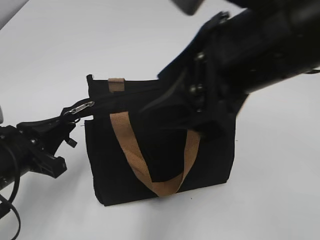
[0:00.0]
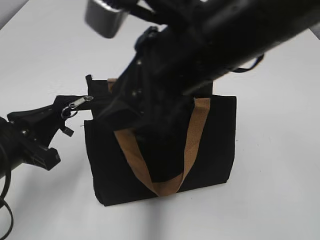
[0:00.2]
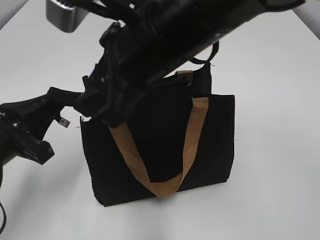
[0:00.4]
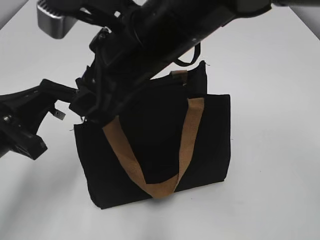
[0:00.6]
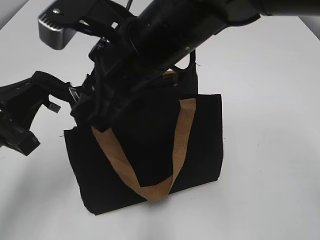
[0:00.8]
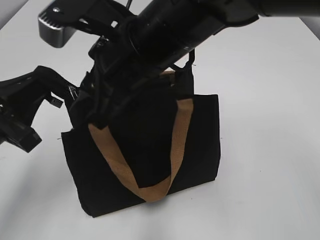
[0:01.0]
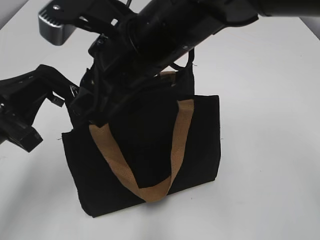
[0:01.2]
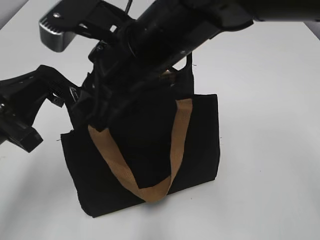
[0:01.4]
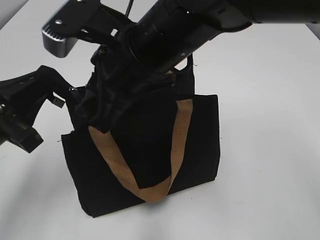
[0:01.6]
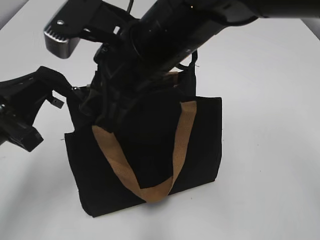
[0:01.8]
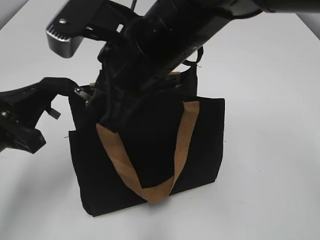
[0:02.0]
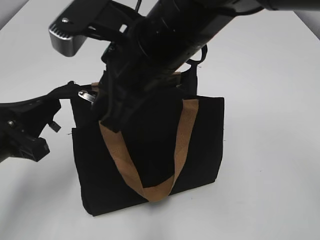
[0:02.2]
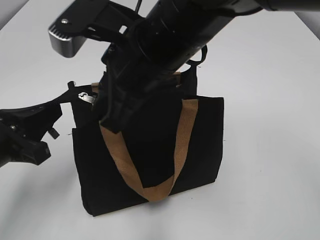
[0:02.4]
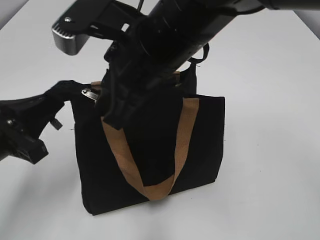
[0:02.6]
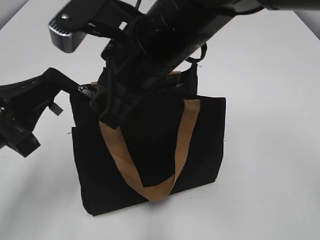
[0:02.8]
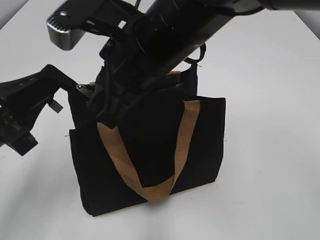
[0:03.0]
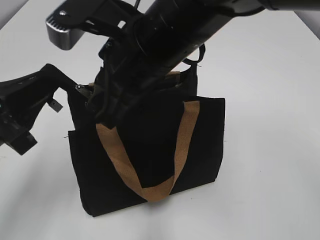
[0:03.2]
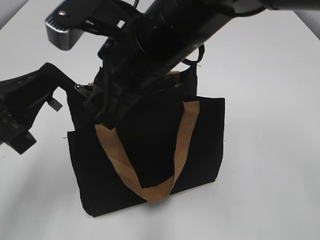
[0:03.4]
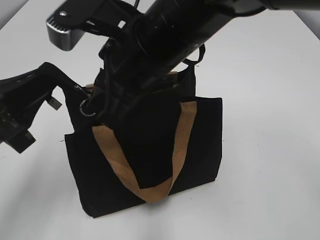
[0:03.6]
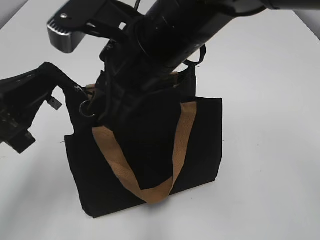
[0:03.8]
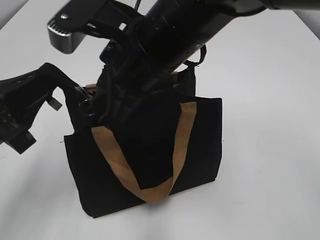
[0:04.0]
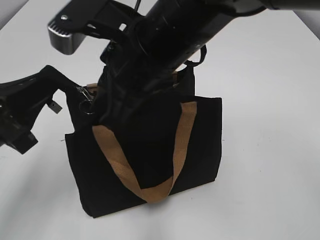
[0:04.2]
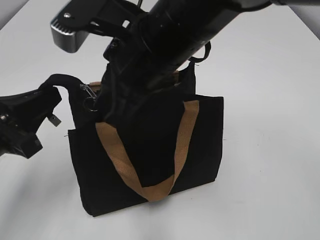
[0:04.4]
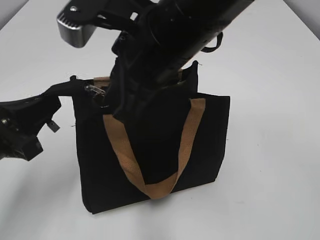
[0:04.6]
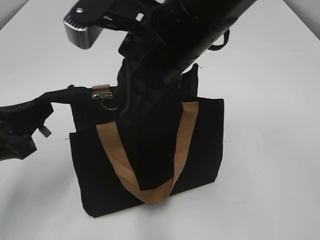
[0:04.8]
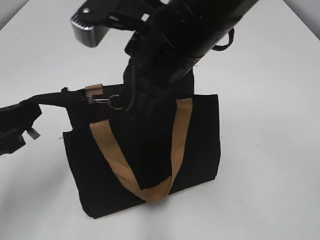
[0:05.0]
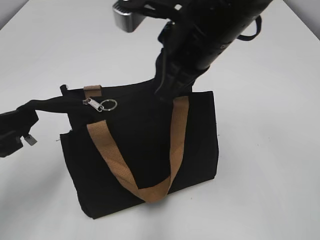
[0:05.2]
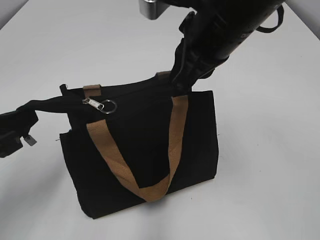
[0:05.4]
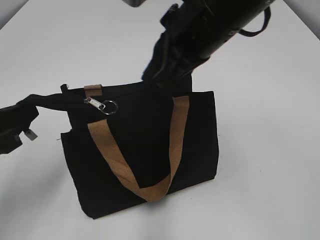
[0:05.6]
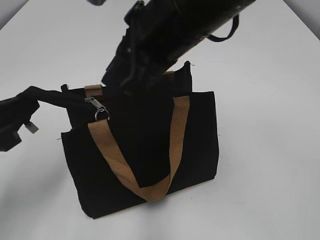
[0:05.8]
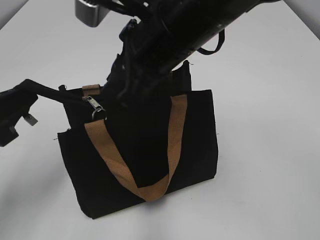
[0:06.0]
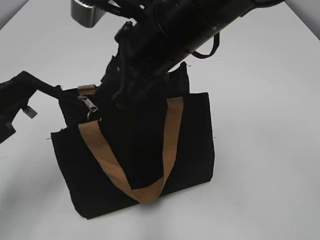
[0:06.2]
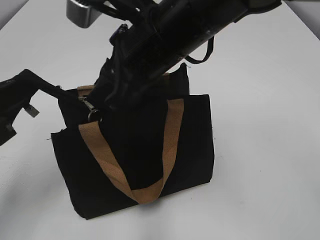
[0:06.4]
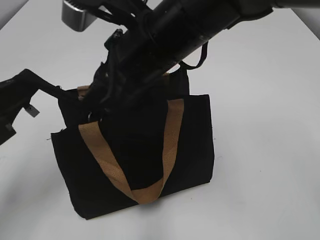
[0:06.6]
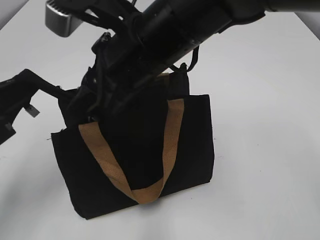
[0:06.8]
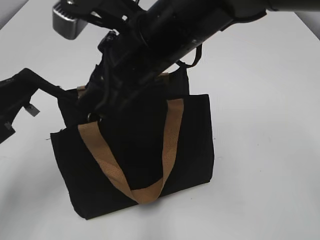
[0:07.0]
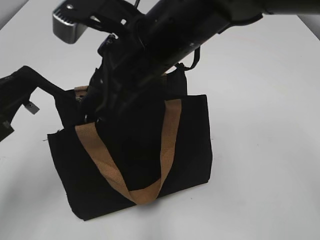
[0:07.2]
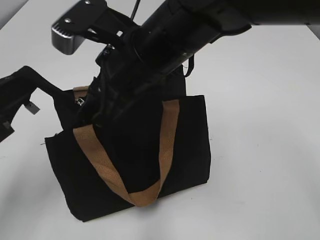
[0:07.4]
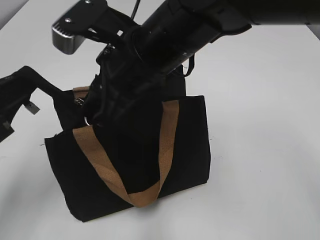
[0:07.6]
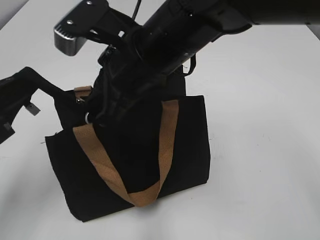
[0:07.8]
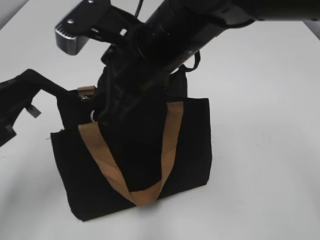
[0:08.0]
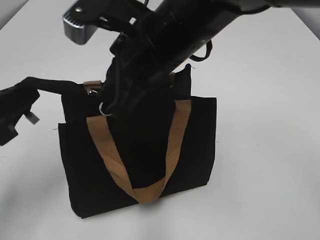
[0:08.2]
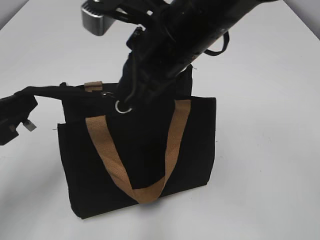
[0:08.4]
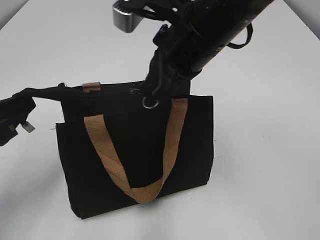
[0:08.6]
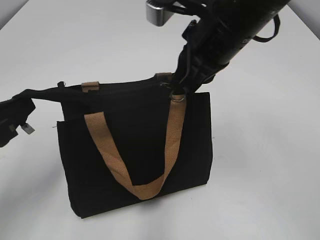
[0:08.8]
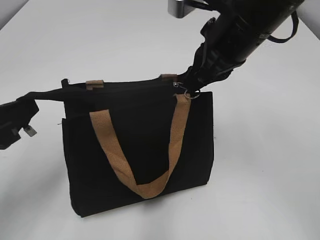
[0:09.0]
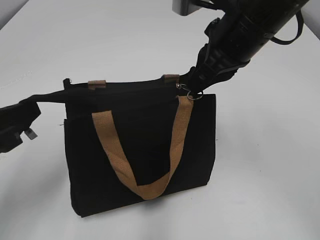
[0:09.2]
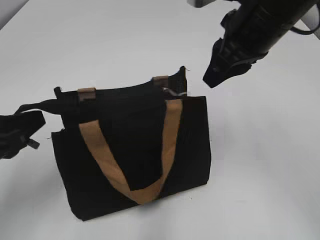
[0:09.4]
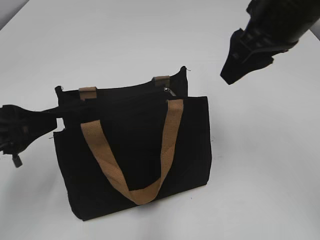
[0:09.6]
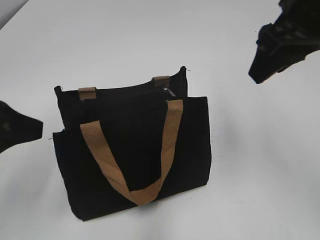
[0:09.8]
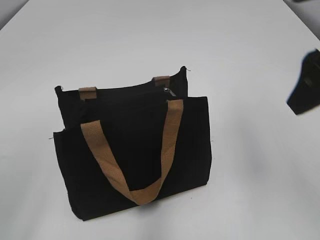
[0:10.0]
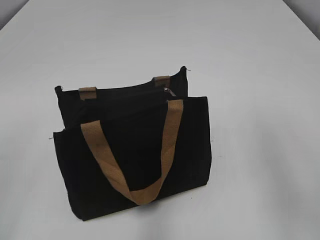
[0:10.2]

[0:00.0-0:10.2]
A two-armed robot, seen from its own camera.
Step, 0:00.0 to 0:09.2: Zip up the bag with your right hand.
0:00.0 to 0:01.4: The left gripper shifts roughly 5 cm upward. The right gripper goes some 15 cm to the left, forward and downward, and closes.
0:01.4 to 0:04.4: The grippers move only a little.
0:05.8 to 0:07.2: The right gripper ends up about 5 cm from where it was.
0:07.2 to 0:08.8: The right gripper shifts some 10 cm to the right, and closes its fingers.
0:08.8 to 0:10.2: The left gripper heads upward and backward, covering roughly 10 cm, and opens its fingers, while the right gripper shifts approximately 20 cm to the right and backward, and opens its fingers.

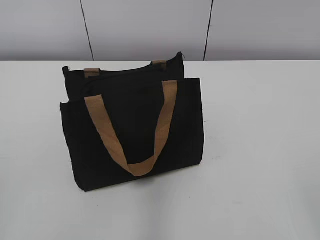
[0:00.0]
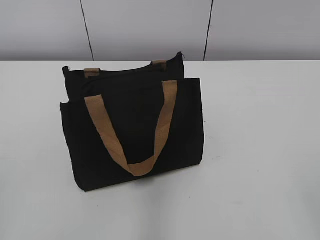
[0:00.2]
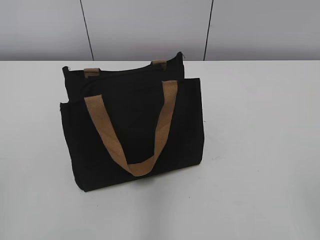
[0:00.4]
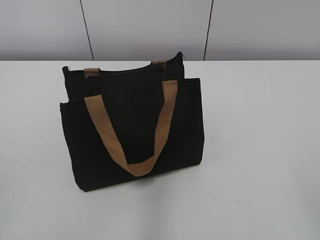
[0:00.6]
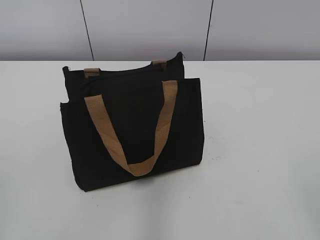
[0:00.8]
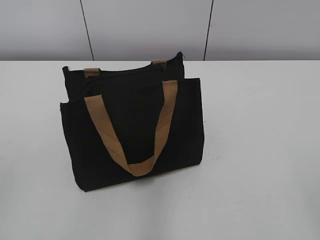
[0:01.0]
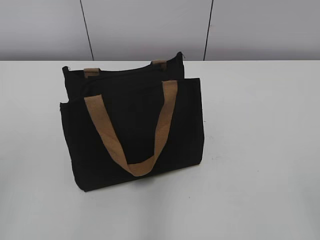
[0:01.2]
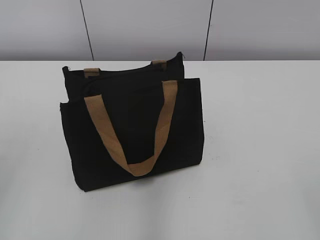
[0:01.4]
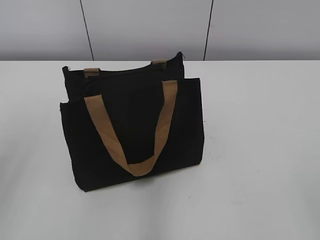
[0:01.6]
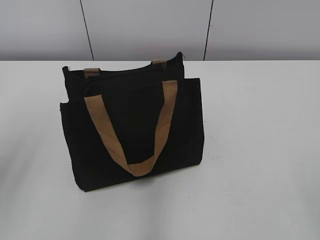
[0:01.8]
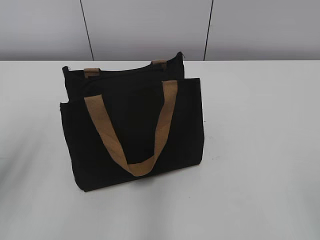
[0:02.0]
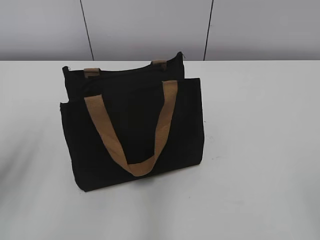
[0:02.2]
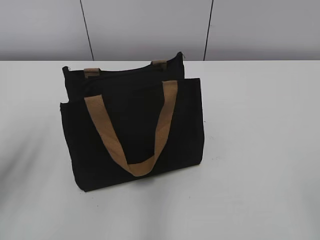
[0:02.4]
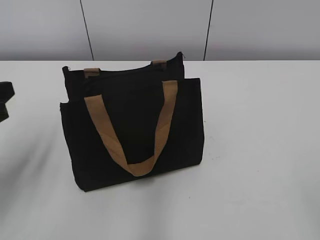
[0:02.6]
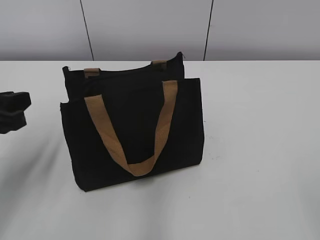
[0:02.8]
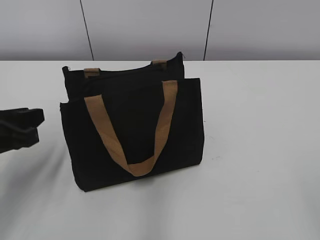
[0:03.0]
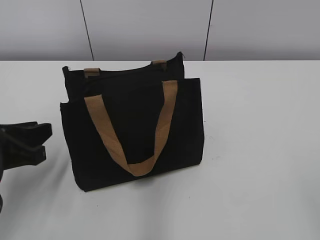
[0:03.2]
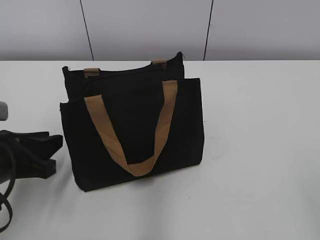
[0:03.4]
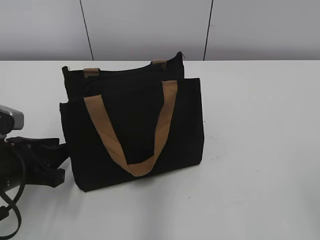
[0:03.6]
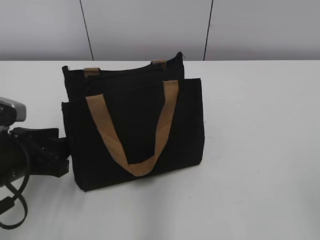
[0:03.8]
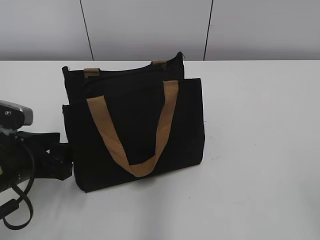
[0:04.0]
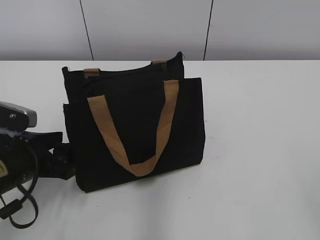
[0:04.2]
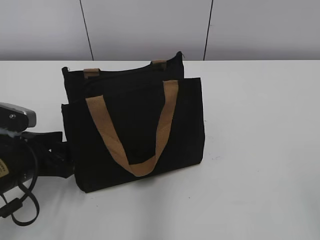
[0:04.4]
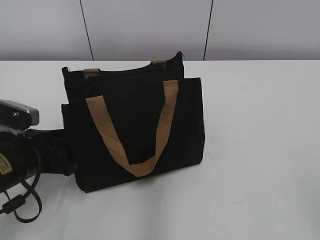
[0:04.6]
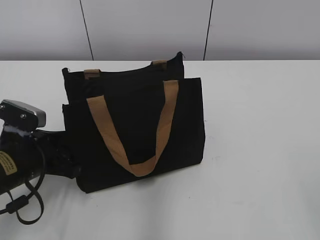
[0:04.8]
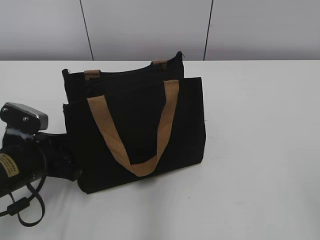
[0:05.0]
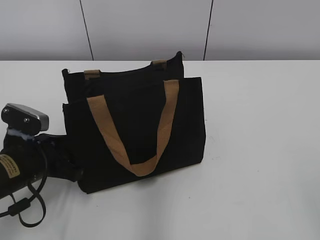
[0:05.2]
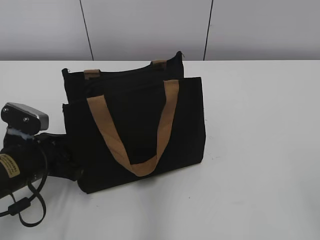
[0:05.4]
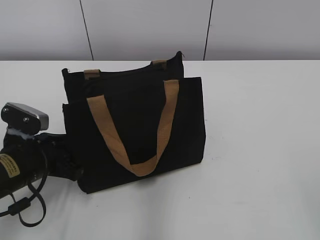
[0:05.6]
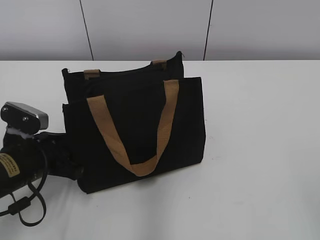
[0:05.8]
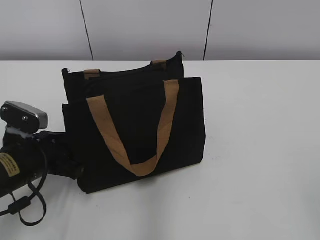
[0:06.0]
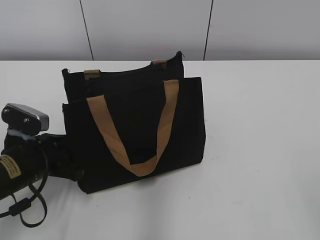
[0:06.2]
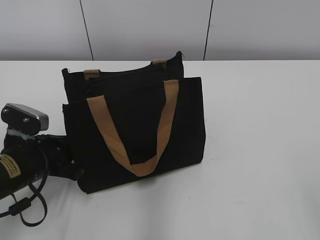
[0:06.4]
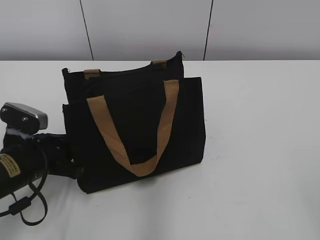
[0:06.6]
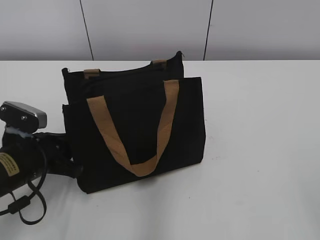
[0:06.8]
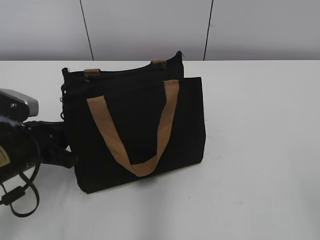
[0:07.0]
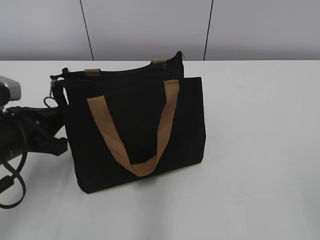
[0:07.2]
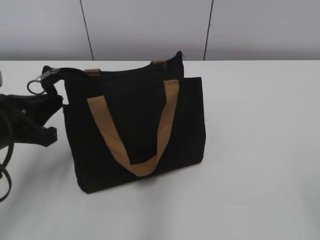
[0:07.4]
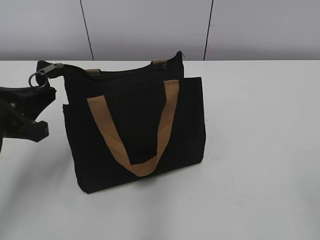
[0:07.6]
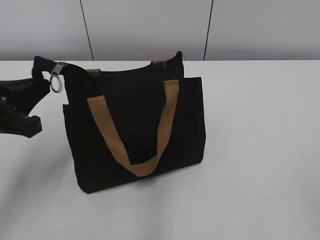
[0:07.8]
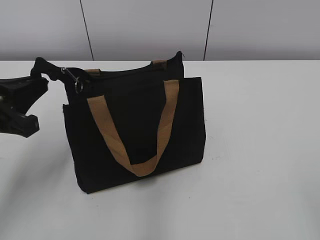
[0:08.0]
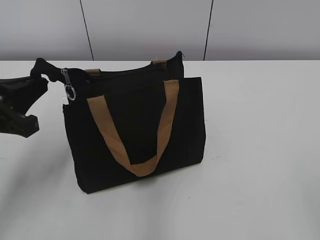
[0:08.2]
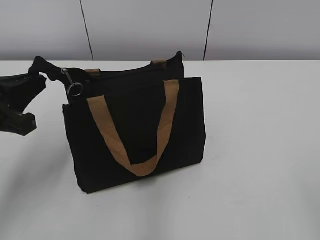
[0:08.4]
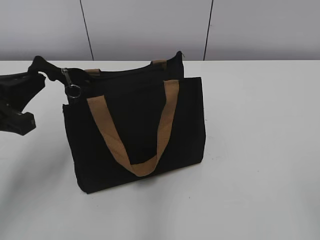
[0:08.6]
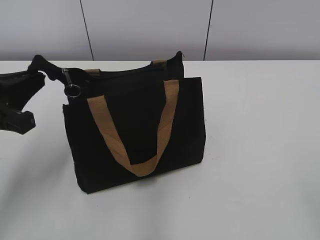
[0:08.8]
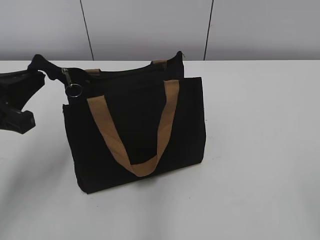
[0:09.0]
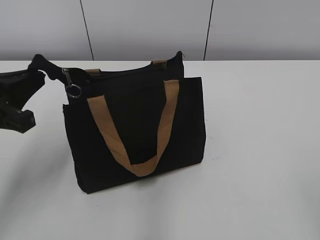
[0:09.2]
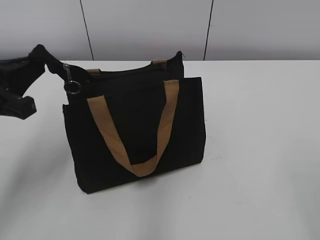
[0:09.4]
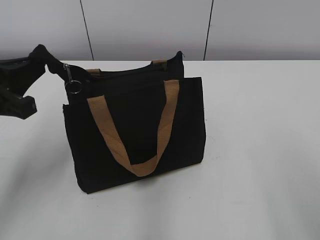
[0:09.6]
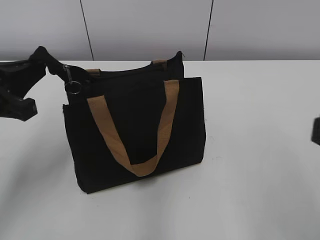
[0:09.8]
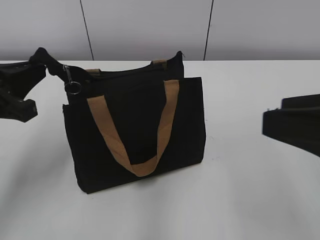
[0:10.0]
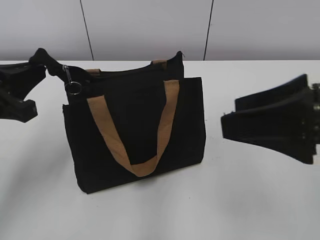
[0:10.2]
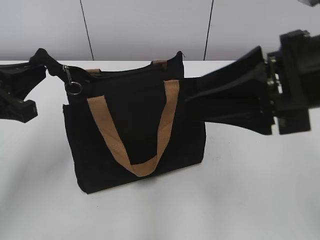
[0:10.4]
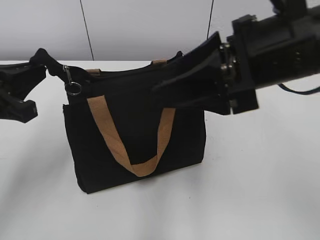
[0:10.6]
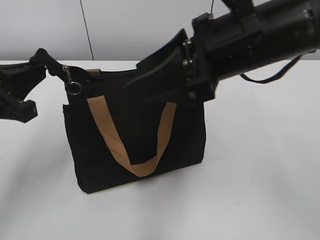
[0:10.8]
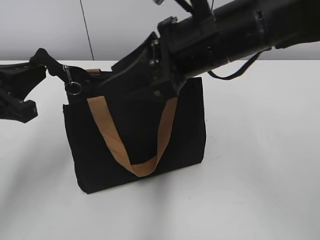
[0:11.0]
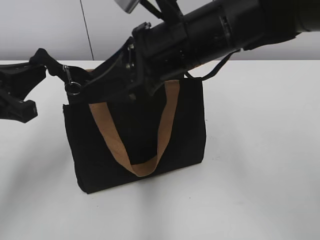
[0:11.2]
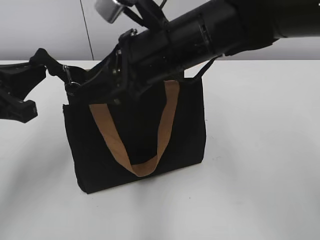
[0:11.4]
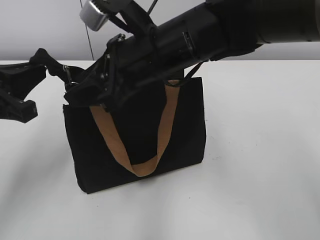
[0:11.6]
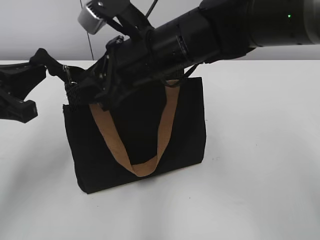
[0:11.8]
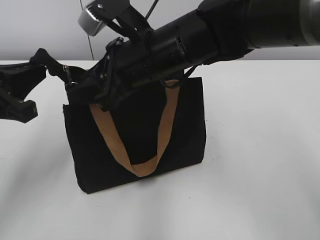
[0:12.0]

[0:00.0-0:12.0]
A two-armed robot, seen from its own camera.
0:01.6 to 0:03.0: The left gripper moves downward and forward, some 15 cm.
0:03.0 to 0:04.4: The left gripper heads downward, covering some 5 cm, and opens its fingers.
0:04.4 to 0:06.0: The left gripper closes its fingers.
0:06.0 to 0:07.6: The left gripper shifts some 10 cm upward, and closes its fingers.
0:07.6 to 0:09.0: The grippers make only small movements.
0:09.0 to 0:10.4: The right gripper goes approximately 25 cm forward and to the left.
0:10.4 to 0:12.0: The right gripper is displaced to the left and forward by some 20 cm.
